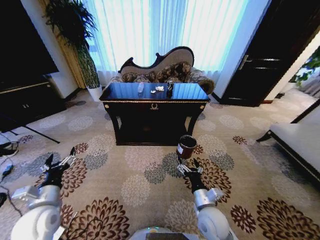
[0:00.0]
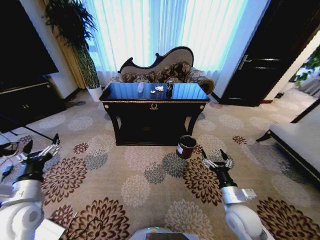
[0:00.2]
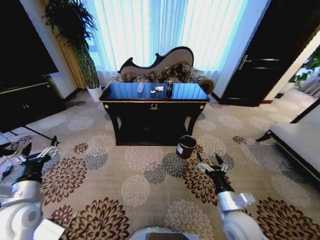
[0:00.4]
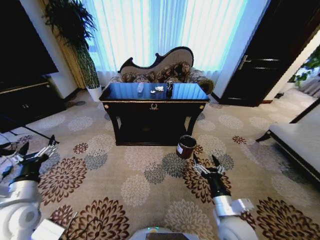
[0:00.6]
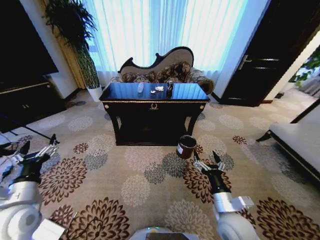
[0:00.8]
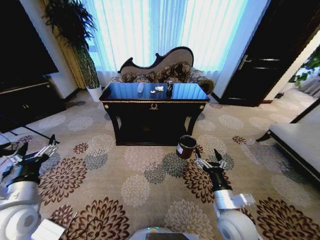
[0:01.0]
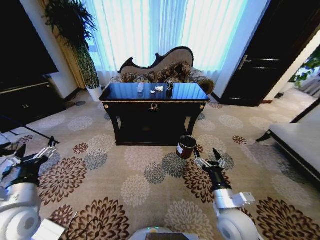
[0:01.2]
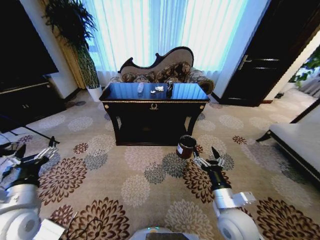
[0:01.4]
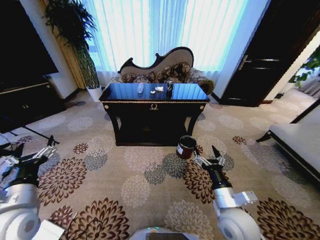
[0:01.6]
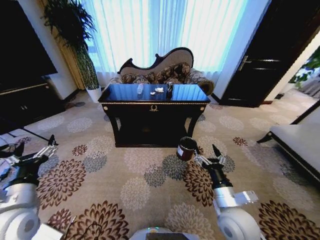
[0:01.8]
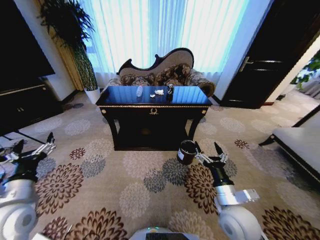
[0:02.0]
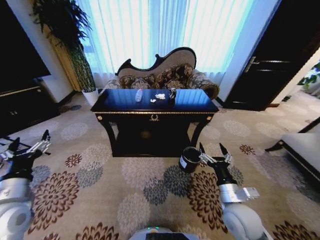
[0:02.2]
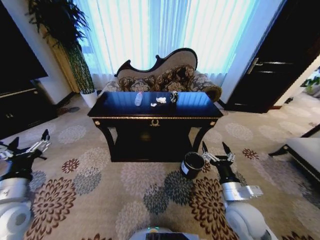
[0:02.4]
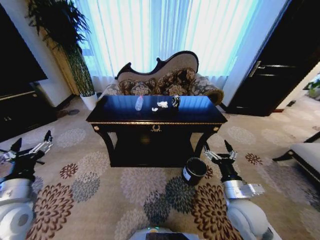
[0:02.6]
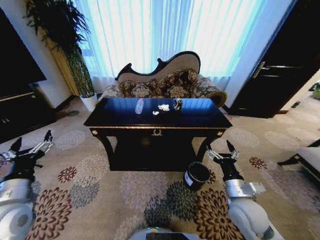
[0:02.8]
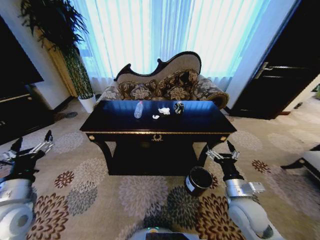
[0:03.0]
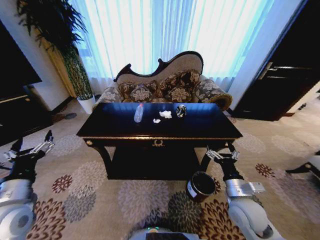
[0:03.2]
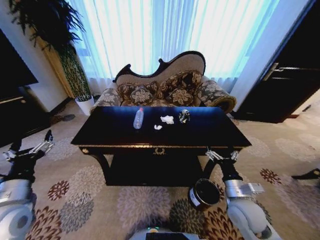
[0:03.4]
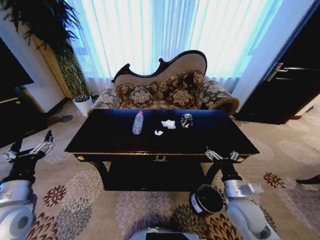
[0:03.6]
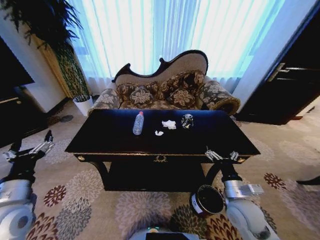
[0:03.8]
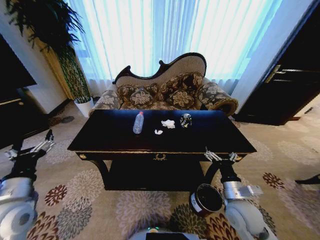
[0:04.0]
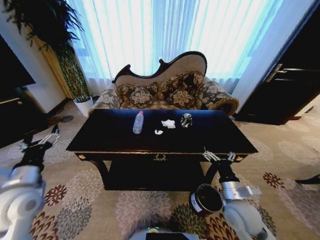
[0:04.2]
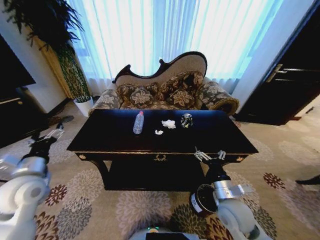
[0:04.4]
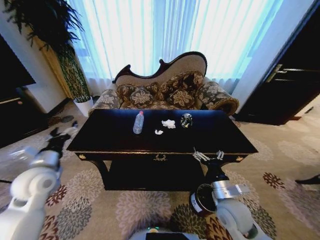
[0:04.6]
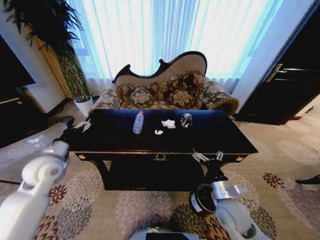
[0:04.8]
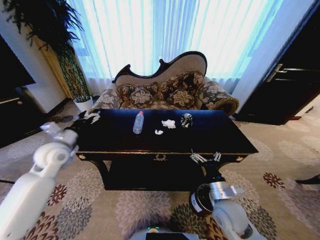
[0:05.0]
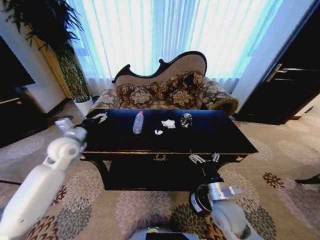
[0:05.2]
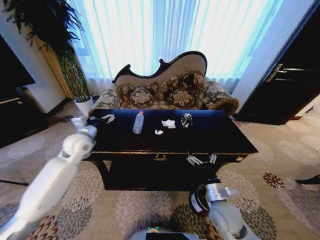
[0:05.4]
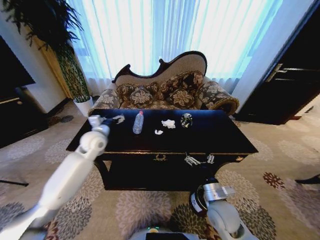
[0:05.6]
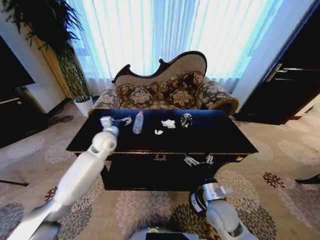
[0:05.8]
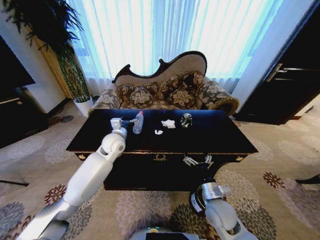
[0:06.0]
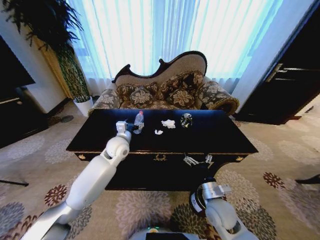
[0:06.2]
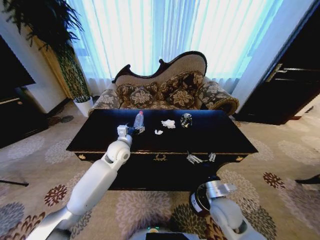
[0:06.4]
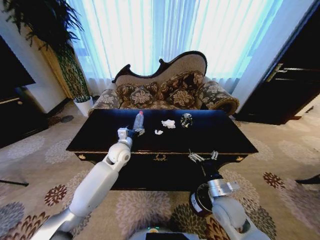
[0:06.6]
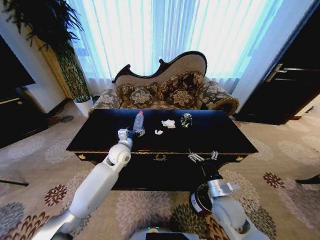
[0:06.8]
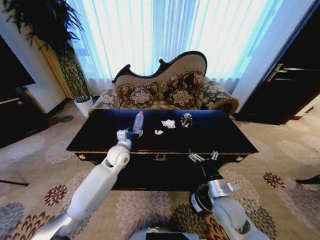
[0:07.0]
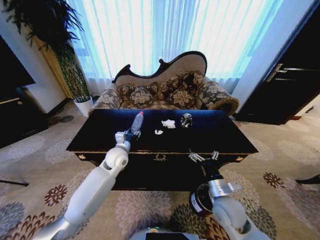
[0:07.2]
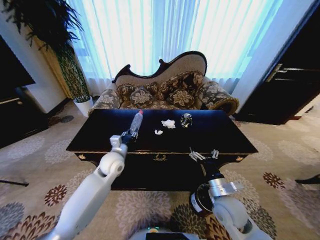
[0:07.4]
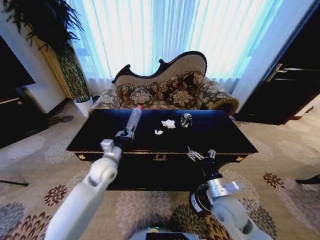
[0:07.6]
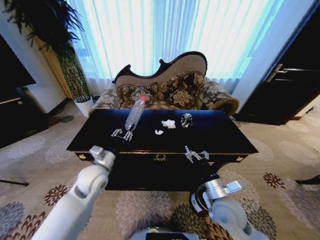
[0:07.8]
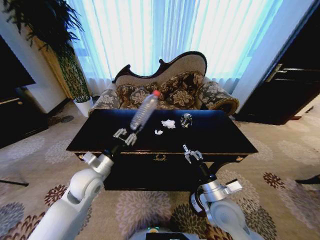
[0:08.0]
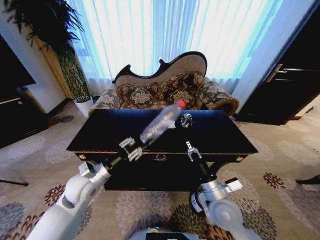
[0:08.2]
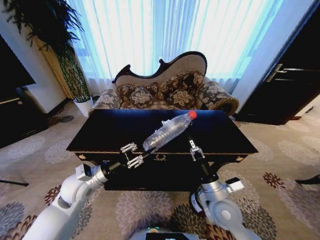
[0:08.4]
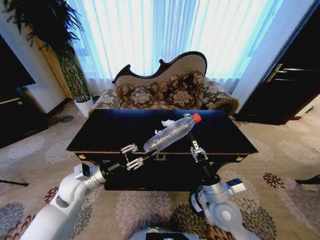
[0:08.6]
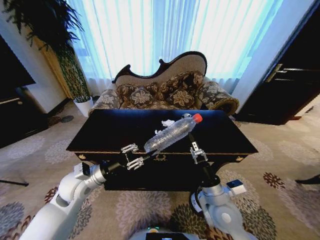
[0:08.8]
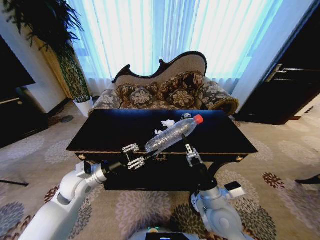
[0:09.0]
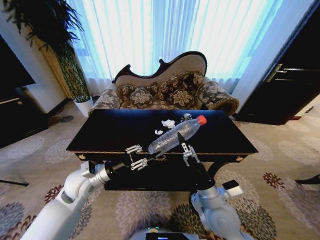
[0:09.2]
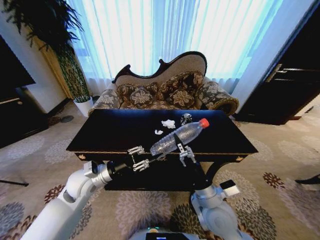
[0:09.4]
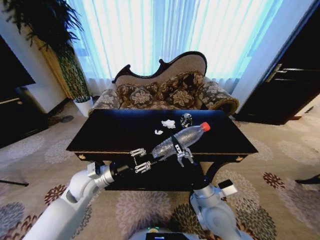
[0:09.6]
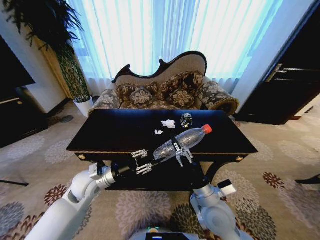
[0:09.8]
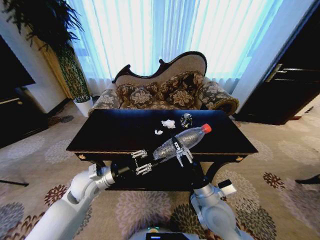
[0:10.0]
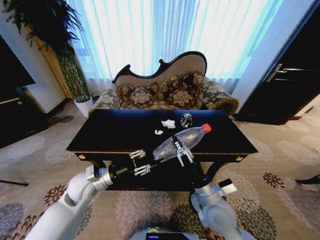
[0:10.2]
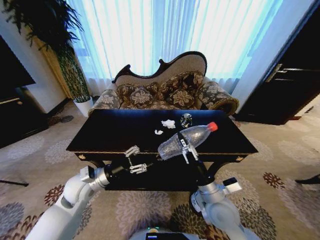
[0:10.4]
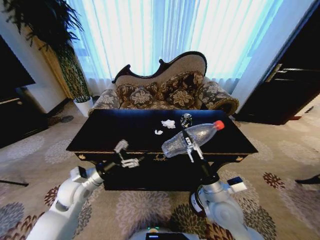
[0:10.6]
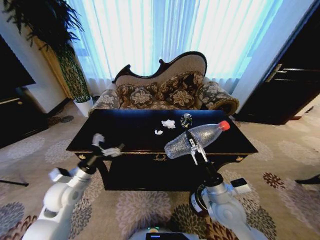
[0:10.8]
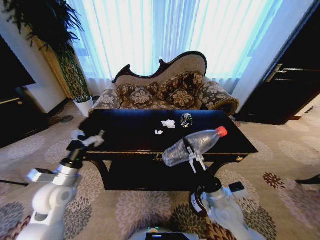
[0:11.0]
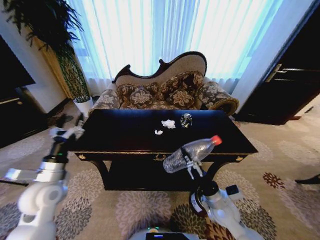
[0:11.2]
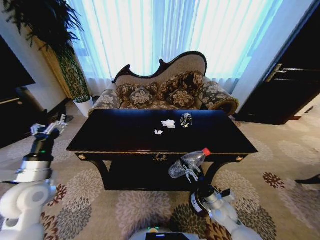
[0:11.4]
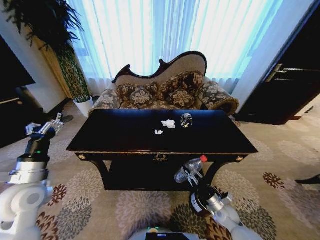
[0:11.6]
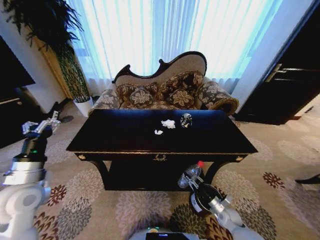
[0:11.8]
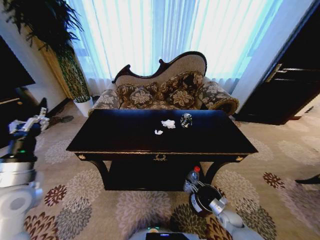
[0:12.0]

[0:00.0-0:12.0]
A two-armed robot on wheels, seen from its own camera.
Task of the whole recording: Move to the front of the table and place the trash on the table into the trash bin.
0:01.6 to 0:03.0: The right gripper is displaced to the right by some 5 cm.
0:03.0 to 0:04.4: The left gripper goes approximately 5 cm forward.
0:04.4 to 0:06.0: The left gripper heads to the right and forward, covering roughly 30 cm. Meanwhile the right gripper changes place by some 5 cm.
0:06.0 to 0:07.6: The left gripper moves backward, roughly 10 cm, and closes.
0:07.6 to 0:09.0: The left gripper is displaced to the left by roughly 5 cm; the right gripper shifts by approximately 5 cm.
0:09.0 to 0:10.4: The right gripper closes its fingers.
0:10.4 to 0:12.0: The left gripper is displaced to the left, upward and backward by some 15 cm, and opens its fingers. Meanwhile the right gripper goes some 35 cm downward and to the right.

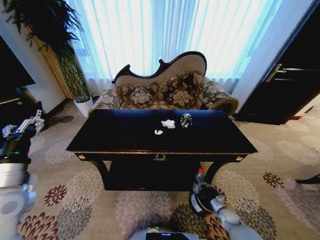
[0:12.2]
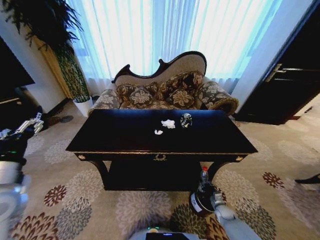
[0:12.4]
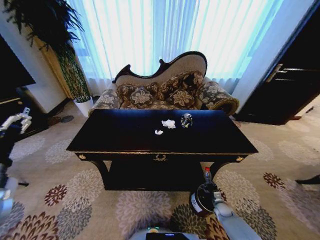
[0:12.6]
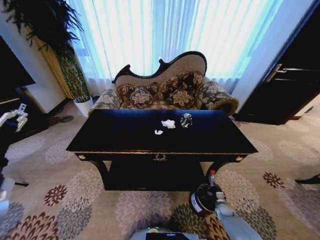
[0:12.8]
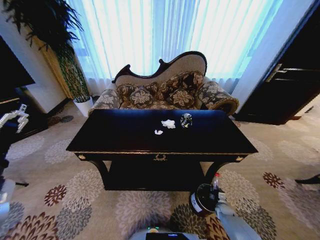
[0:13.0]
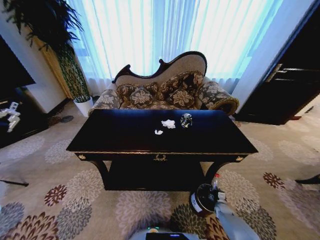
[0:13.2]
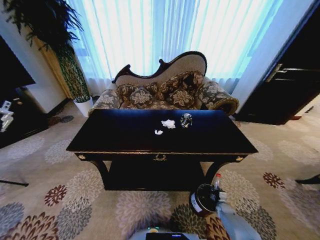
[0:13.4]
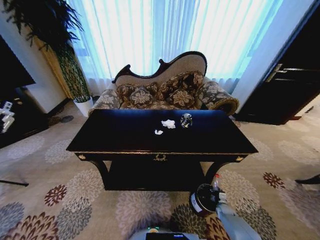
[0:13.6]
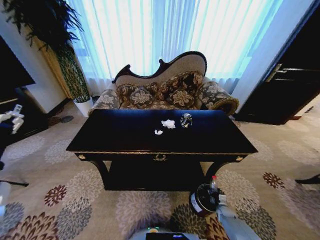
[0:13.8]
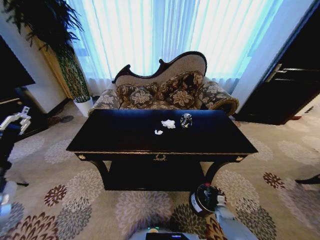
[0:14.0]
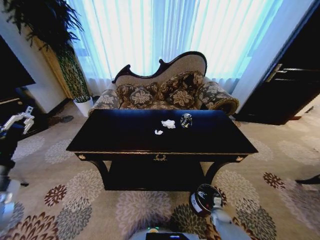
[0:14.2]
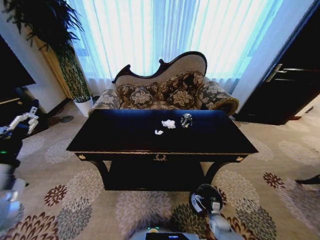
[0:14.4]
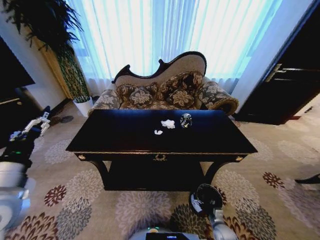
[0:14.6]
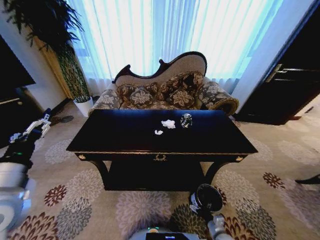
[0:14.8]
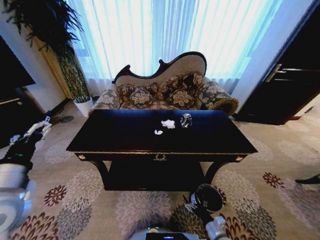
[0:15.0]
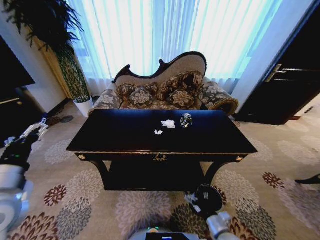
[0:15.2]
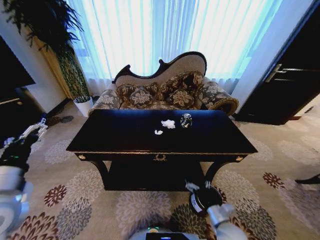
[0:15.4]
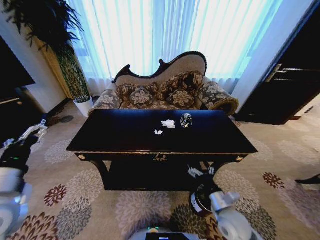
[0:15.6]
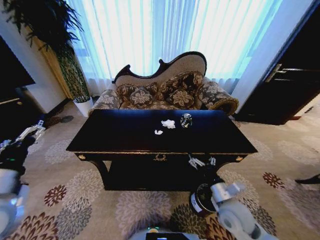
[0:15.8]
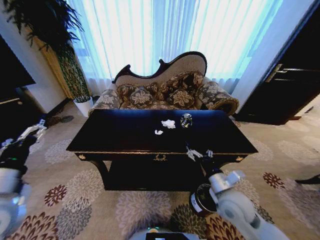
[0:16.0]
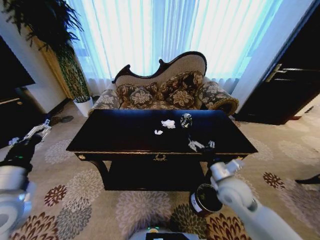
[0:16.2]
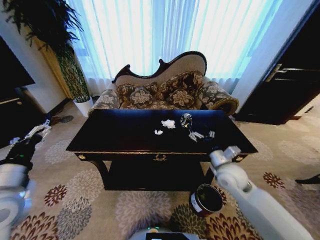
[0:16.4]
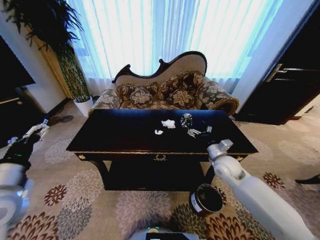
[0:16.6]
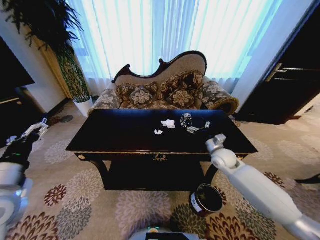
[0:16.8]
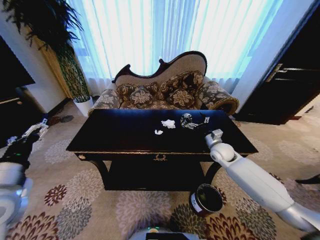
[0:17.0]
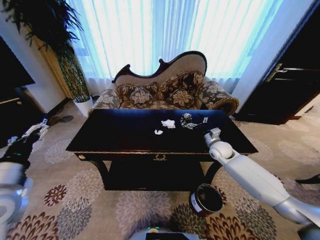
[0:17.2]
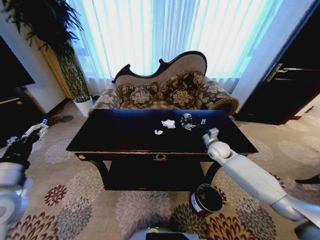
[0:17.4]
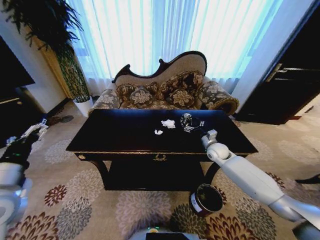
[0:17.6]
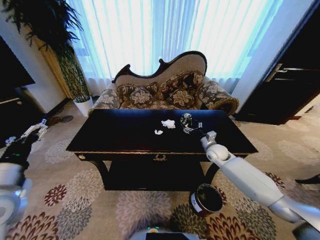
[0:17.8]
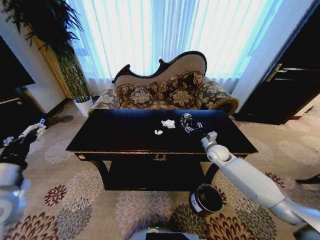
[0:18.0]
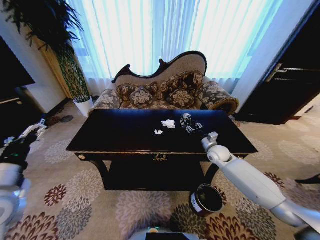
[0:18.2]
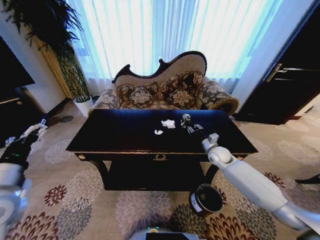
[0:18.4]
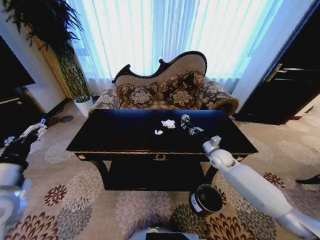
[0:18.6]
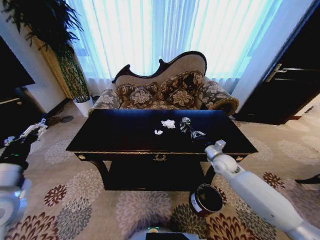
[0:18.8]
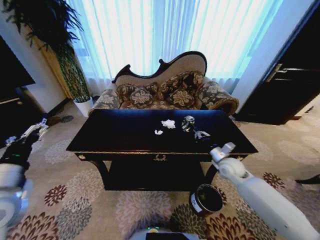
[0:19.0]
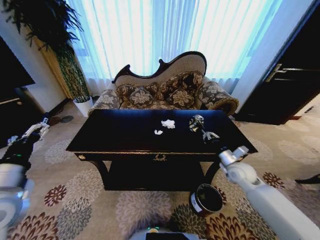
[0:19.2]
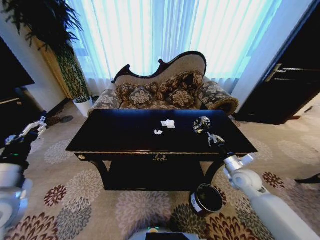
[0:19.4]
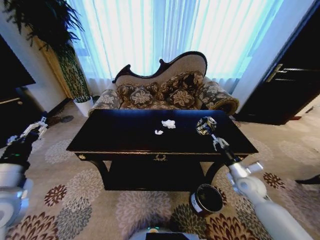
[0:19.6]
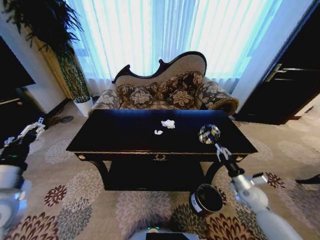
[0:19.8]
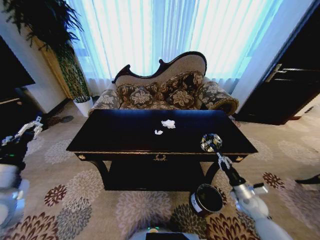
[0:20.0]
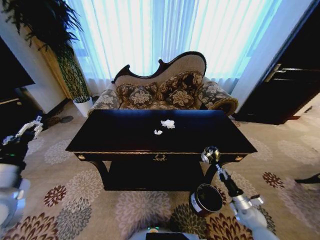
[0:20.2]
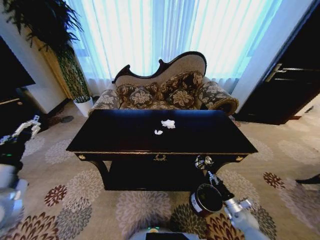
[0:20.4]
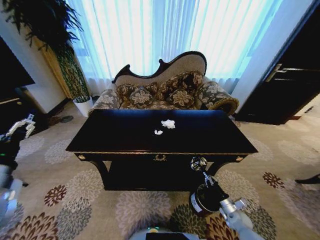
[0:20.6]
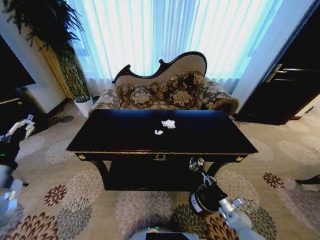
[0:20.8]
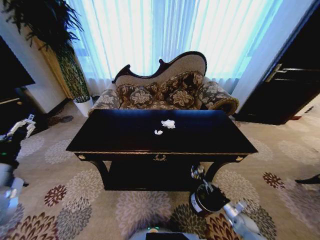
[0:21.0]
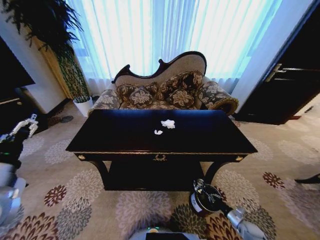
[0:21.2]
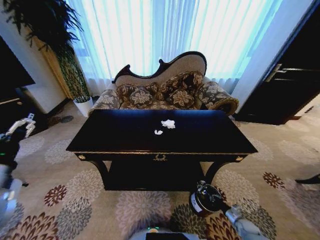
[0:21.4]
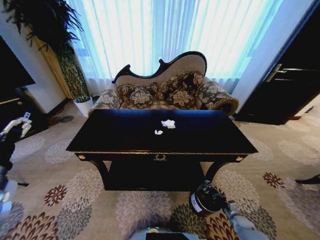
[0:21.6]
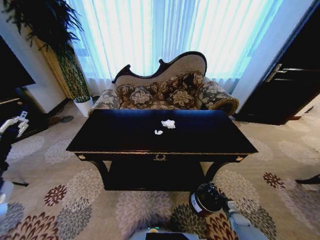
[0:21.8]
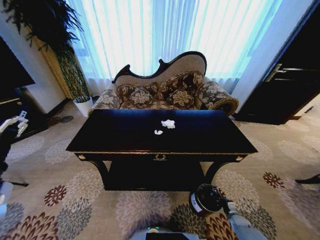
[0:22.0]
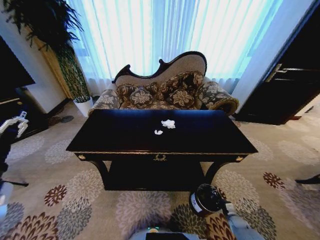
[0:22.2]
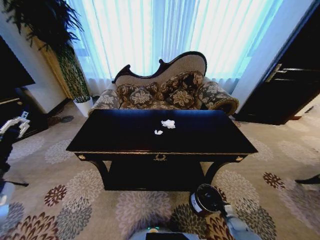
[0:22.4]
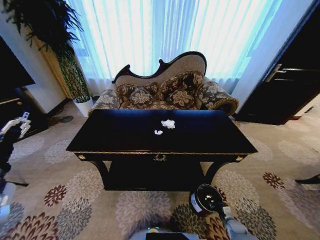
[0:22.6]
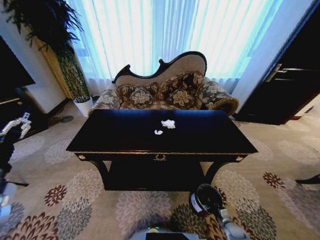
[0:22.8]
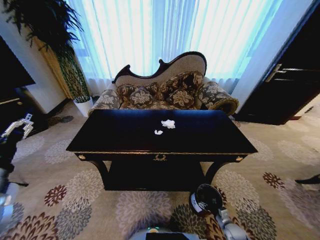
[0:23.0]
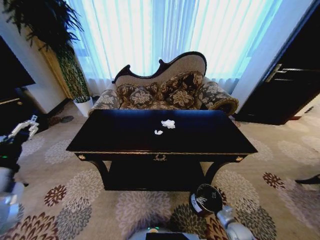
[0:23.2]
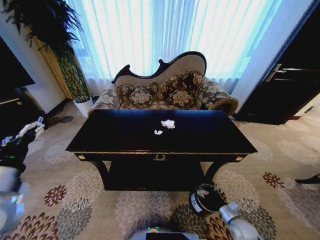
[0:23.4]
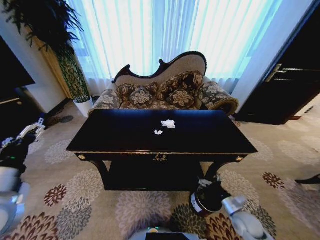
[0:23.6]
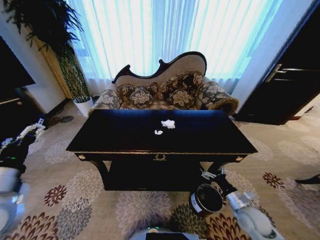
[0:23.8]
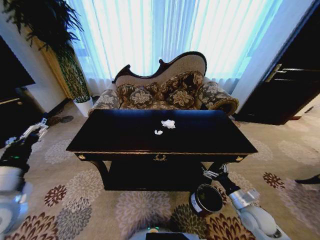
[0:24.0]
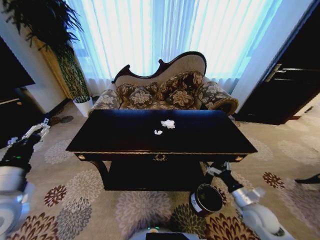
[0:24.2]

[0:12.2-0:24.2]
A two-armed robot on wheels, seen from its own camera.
Task of the whole recording: Move to the front of the table and place the trash on the table into the trash bin.
0:12.2 to 0:13.8: The right gripper shifts some 5 cm downward, and opens its fingers. Meanwhile the left gripper is displaced upward by about 5 cm.
0:13.8 to 0:15.2: The right gripper travels upward, to the left and backward by some 30 cm, and opens up.
0:15.2 to 0:16.6: The right gripper goes roughly 30 cm forward and upward.
0:16.6 to 0:18.2: The right gripper travels forward by approximately 10 cm, and closes.
0:18.2 to 0:19.8: The right gripper goes about 20 cm backward and to the right, and closes its fingers.
0:19.8 to 0:21.2: The right gripper shifts approximately 25 cm downward and backward.
0:21.2 to 0:22.6: The right gripper shifts by roughly 5 cm, and opens up.
0:22.6 to 0:24.2: The right gripper goes about 30 cm upward, and opens its fingers.
